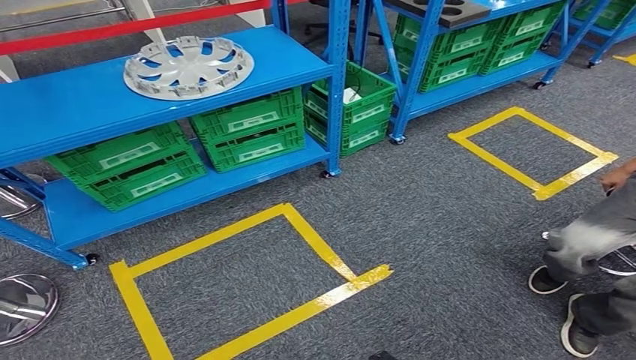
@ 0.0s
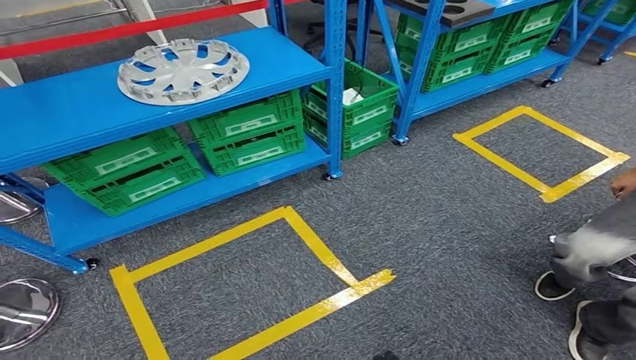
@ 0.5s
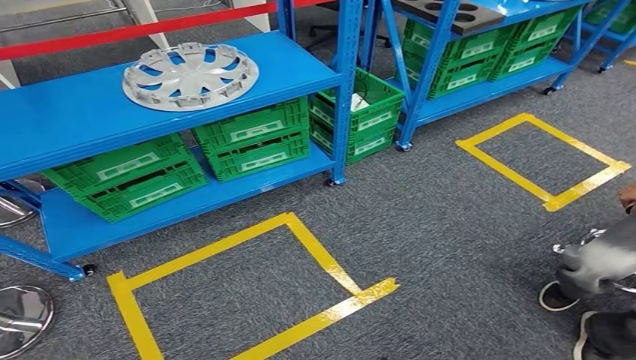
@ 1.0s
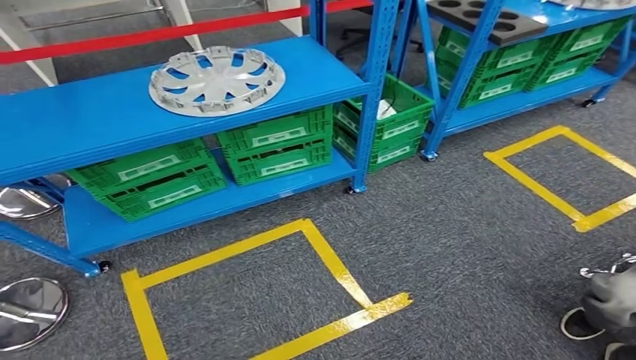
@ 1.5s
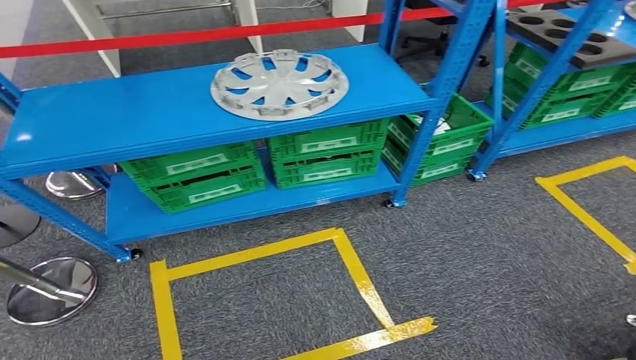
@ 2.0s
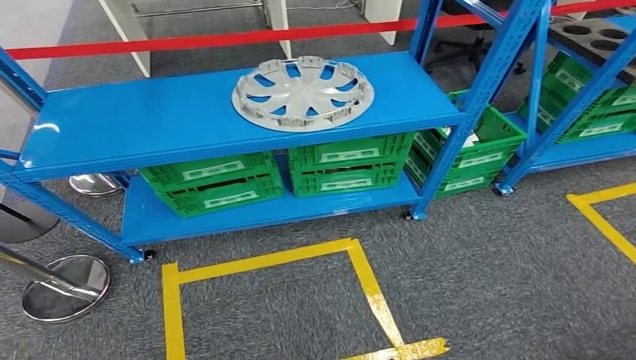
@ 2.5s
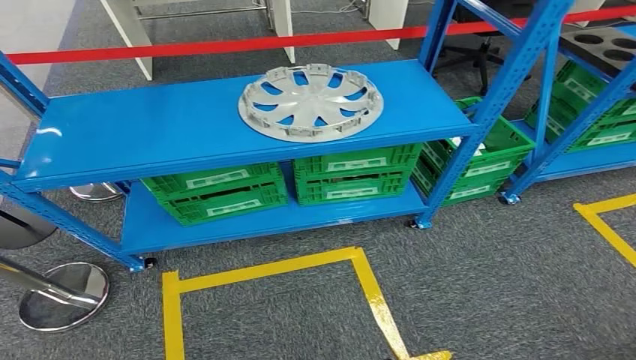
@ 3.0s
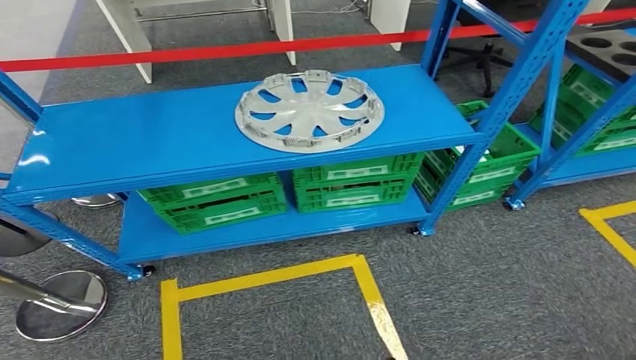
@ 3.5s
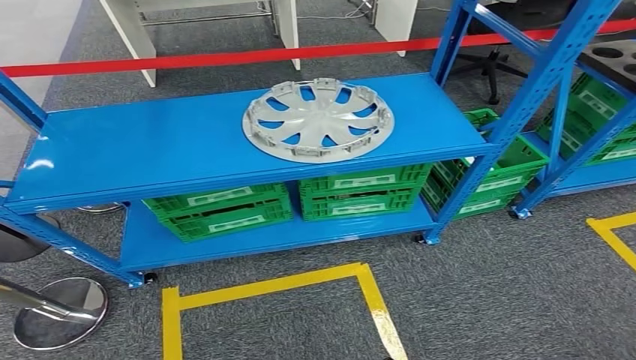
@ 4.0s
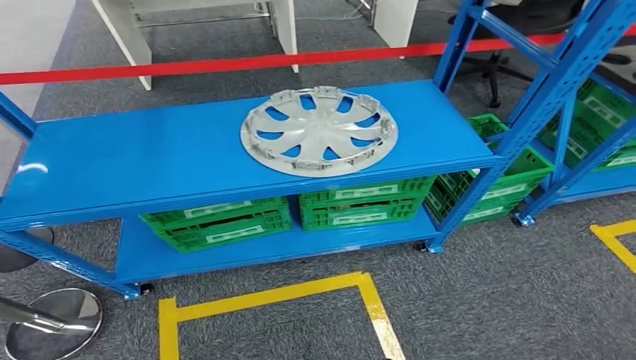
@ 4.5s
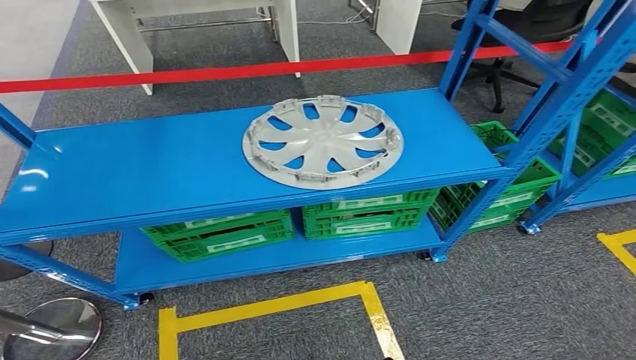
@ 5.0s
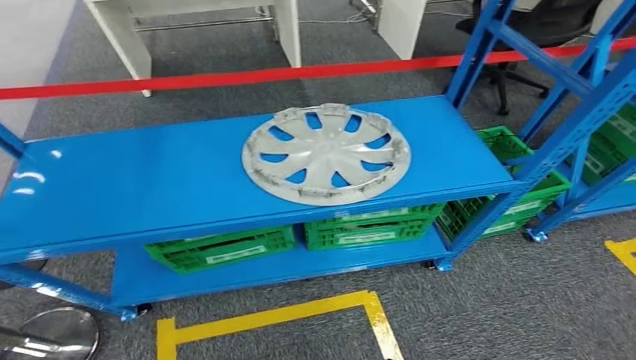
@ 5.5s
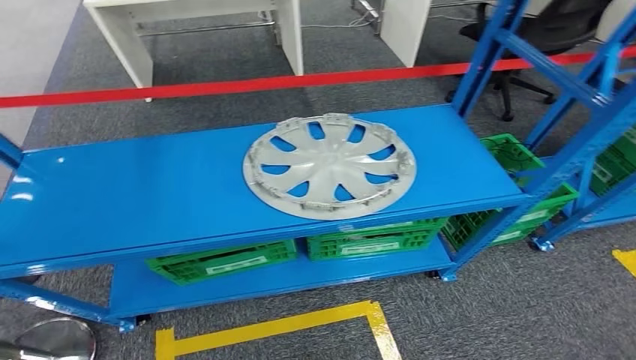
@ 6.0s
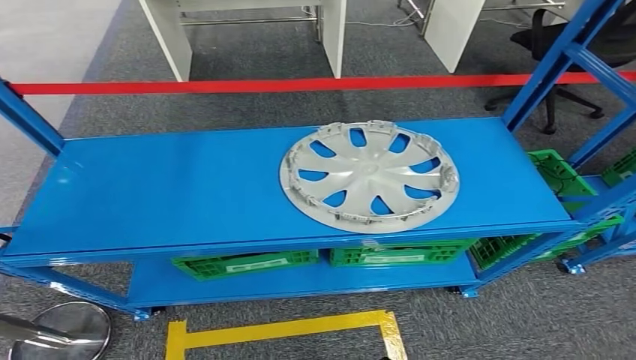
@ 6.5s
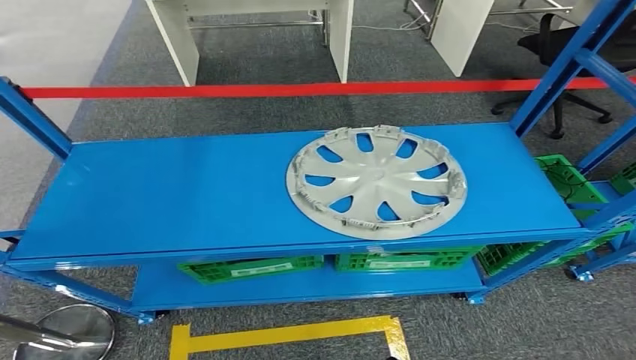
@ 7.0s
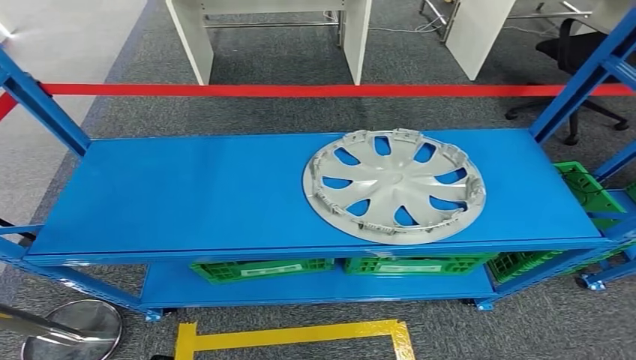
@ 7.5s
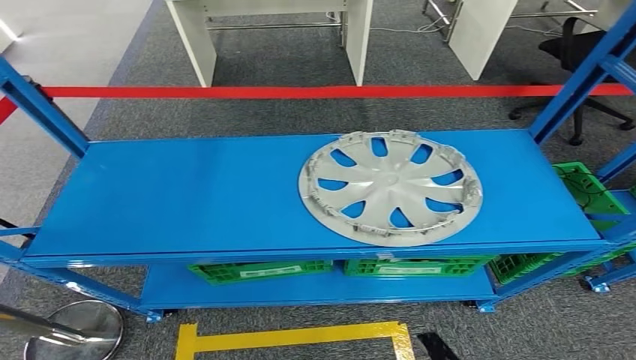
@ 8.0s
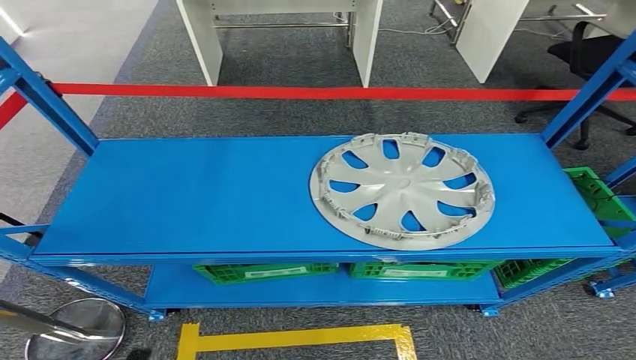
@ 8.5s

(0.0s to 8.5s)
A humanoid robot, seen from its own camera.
Step, 0.0s - 8.5s: Move to the initial position of the workbench.
